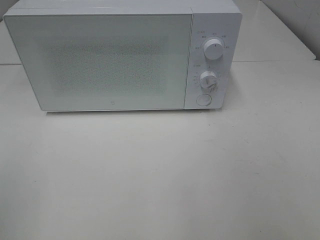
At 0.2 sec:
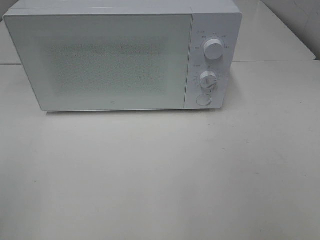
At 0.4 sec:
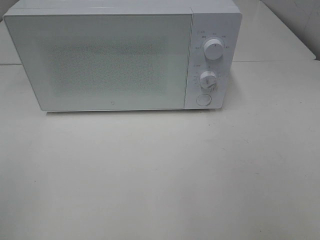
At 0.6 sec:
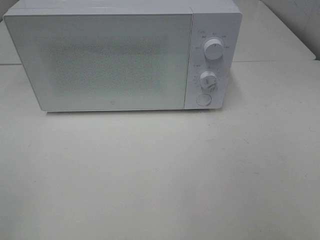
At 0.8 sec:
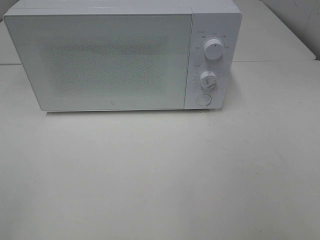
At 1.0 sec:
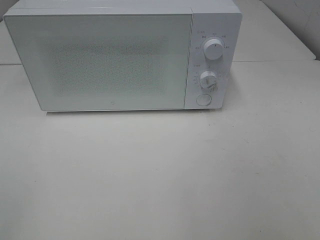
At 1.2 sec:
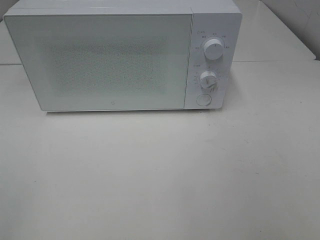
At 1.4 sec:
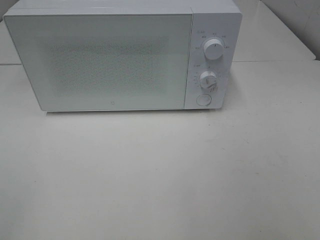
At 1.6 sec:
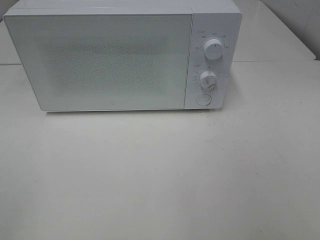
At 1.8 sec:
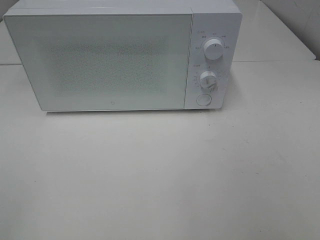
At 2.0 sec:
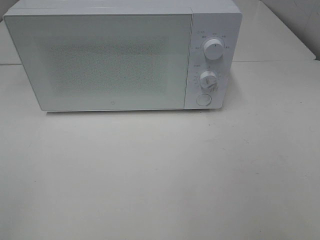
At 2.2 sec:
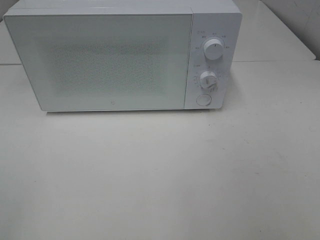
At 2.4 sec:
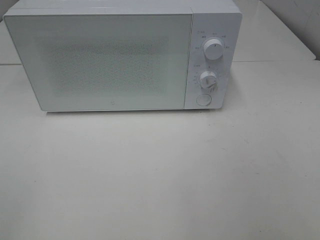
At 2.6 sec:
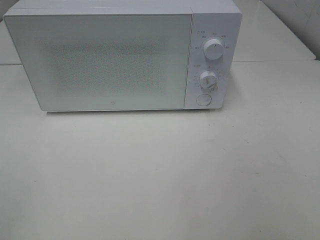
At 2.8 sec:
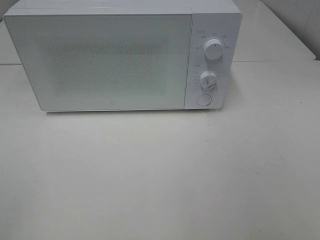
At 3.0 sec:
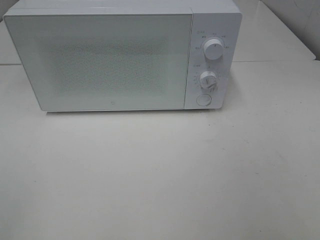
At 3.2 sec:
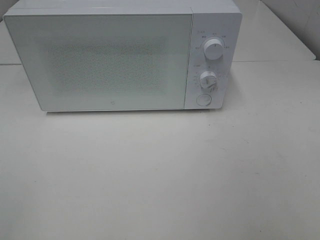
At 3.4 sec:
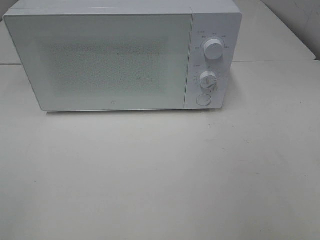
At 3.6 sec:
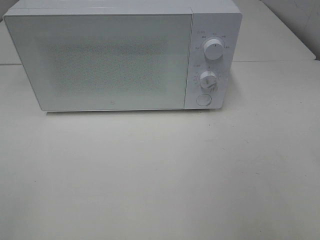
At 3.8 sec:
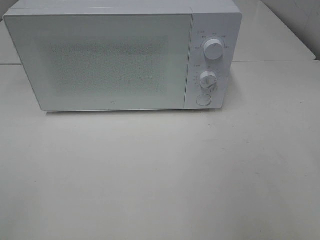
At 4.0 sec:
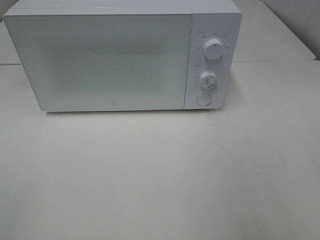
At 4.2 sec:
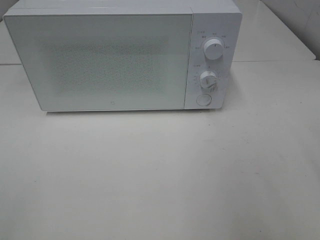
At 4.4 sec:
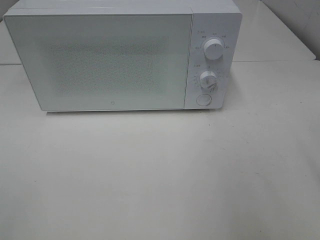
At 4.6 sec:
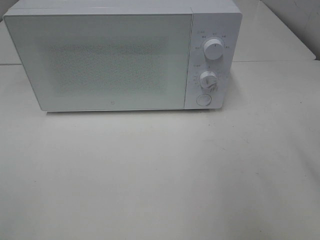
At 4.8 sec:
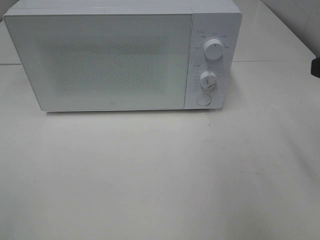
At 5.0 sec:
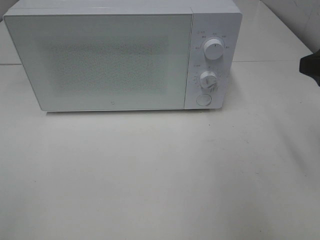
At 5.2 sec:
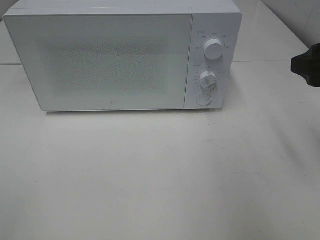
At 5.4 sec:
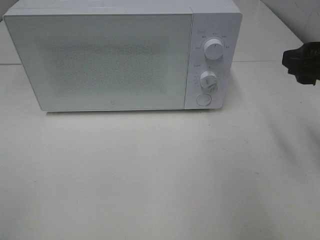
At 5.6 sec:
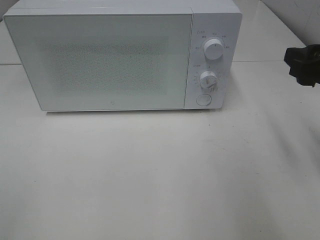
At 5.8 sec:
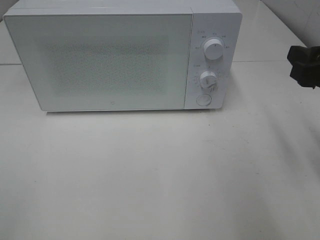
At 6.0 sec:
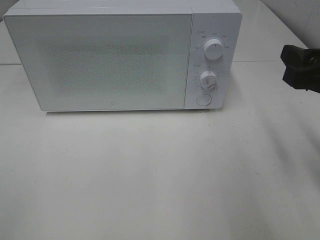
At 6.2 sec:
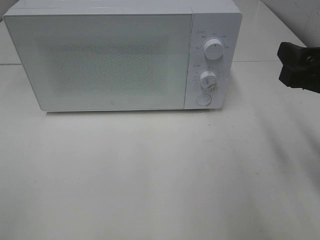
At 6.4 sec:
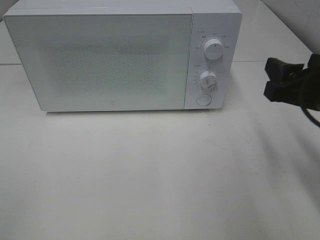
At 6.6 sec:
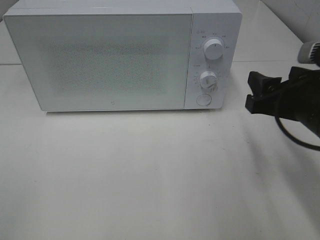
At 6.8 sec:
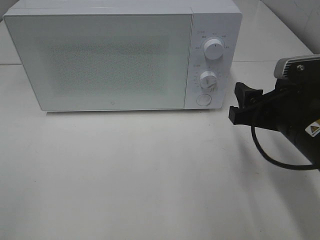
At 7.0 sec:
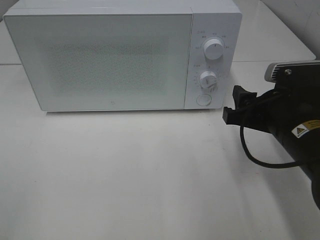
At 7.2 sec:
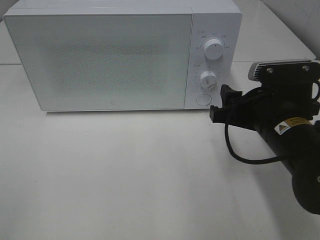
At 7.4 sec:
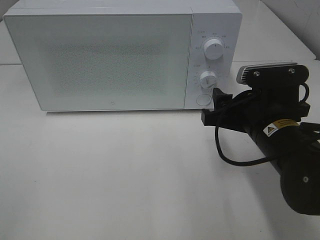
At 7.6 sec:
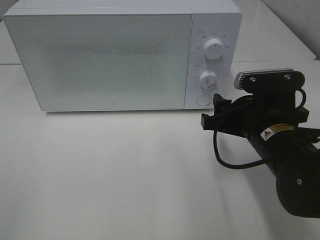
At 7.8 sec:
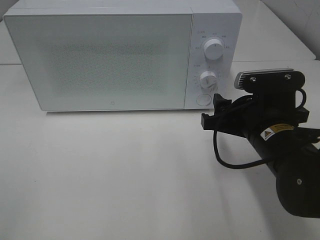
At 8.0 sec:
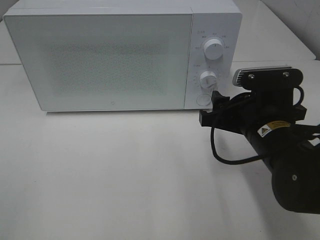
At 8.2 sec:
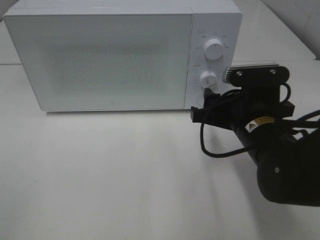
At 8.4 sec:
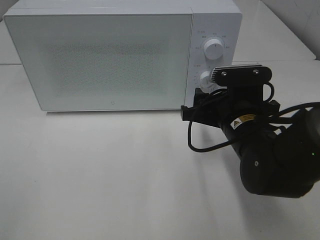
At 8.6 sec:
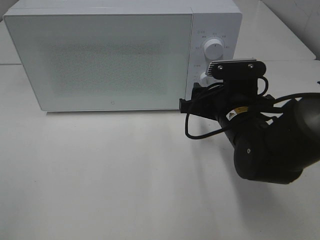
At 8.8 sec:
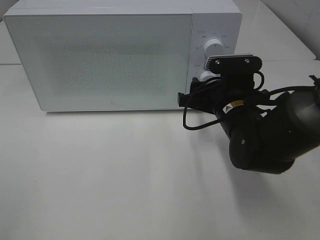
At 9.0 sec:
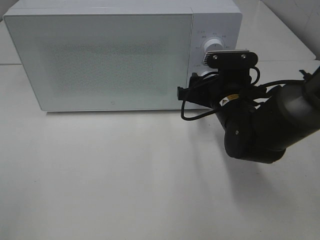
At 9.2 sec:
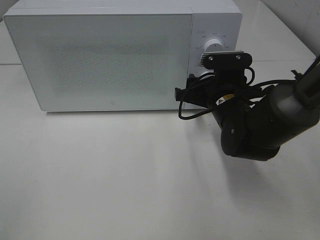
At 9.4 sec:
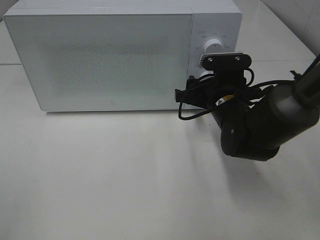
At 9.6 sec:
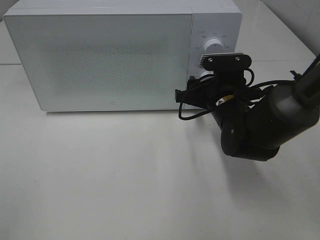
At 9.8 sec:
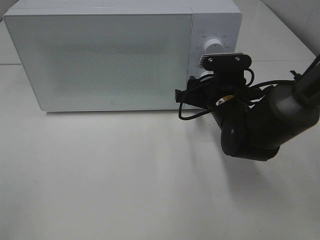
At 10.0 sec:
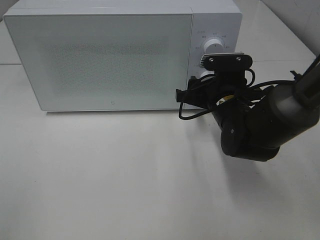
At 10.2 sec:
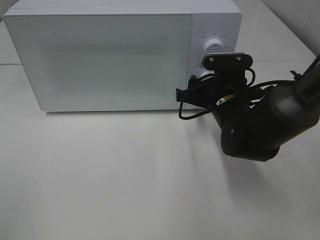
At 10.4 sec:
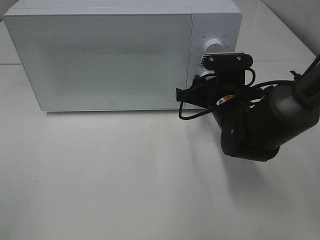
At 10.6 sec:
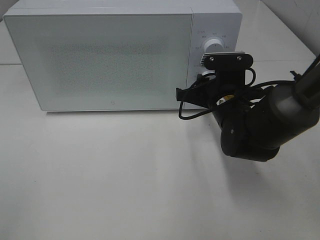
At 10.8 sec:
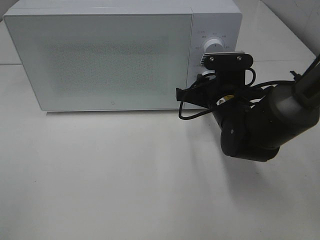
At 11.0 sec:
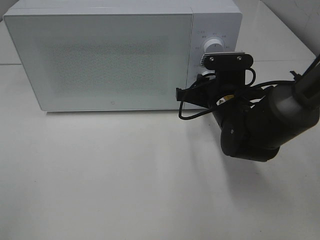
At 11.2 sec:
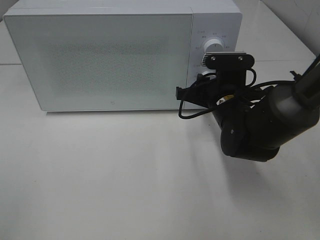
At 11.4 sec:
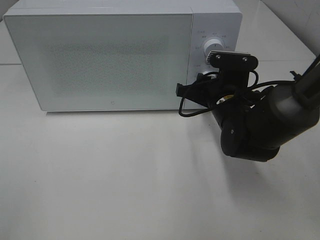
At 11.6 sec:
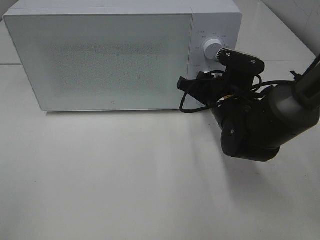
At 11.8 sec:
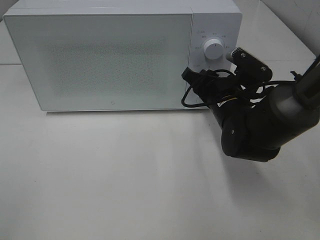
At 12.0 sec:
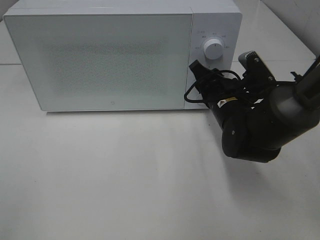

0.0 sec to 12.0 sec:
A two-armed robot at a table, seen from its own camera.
Task of the whole recording: Heat Sandwich.
4.4 sec to 6.0 sec: The right gripper shifts roughly 10 cm downward and forward.
6.0 sec to 7.6 sec: The right gripper goes about 15 cm downward and to the left.
7.6 sec to 9.0 sec: The right gripper is displaced forward by about 10 cm.
9.0 sec to 10.4 sec: Both grippers stay about where they are.

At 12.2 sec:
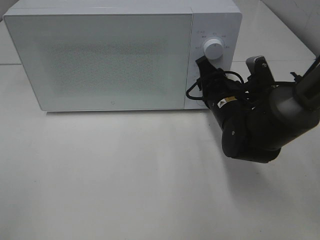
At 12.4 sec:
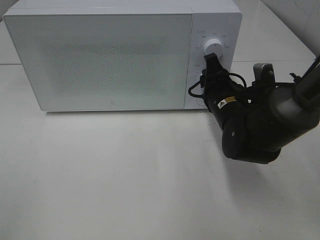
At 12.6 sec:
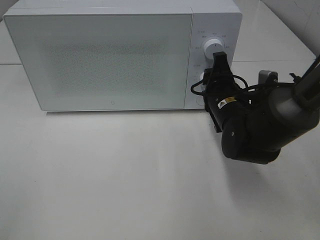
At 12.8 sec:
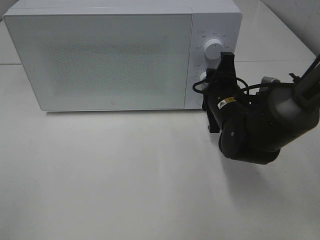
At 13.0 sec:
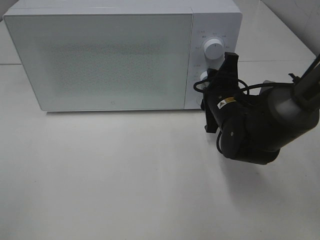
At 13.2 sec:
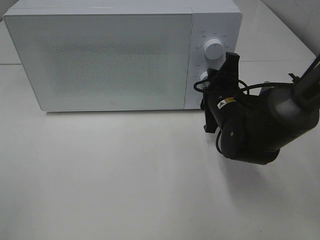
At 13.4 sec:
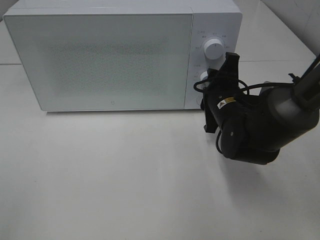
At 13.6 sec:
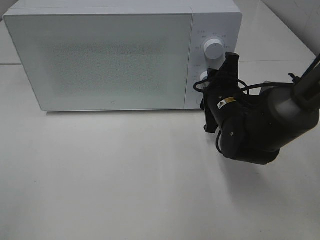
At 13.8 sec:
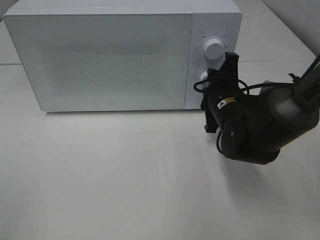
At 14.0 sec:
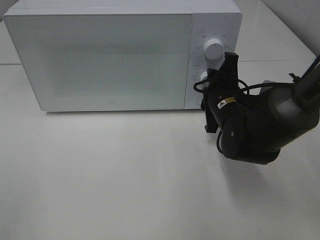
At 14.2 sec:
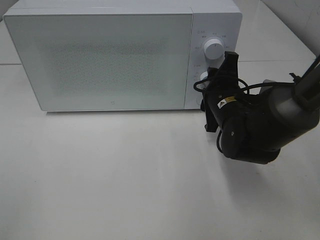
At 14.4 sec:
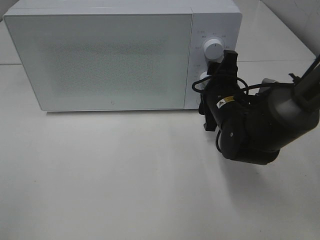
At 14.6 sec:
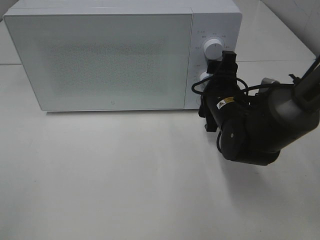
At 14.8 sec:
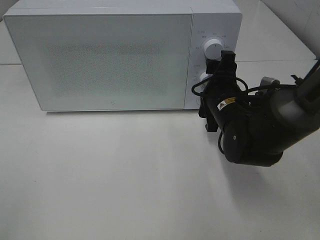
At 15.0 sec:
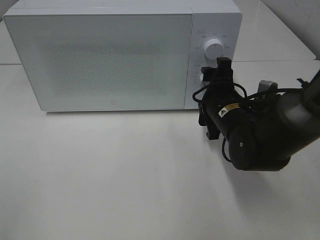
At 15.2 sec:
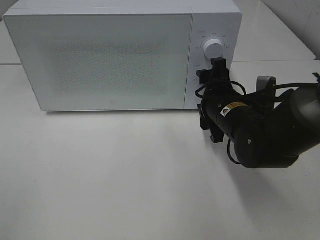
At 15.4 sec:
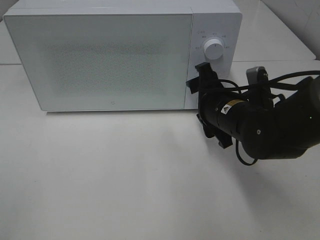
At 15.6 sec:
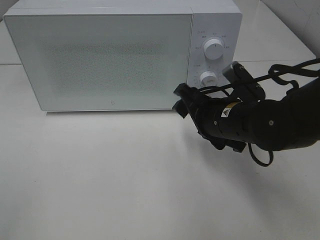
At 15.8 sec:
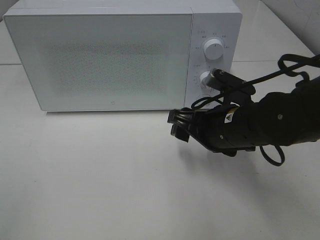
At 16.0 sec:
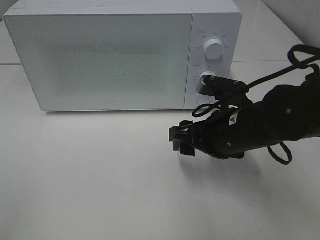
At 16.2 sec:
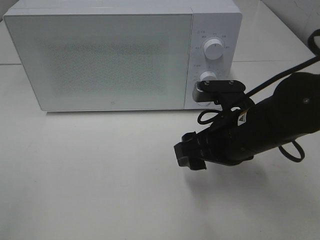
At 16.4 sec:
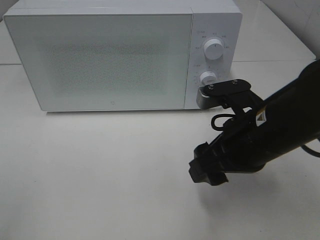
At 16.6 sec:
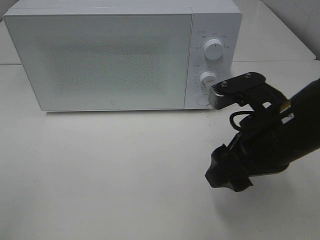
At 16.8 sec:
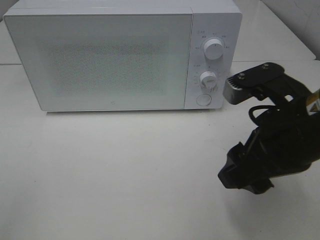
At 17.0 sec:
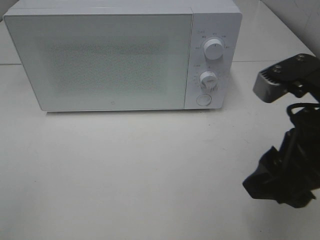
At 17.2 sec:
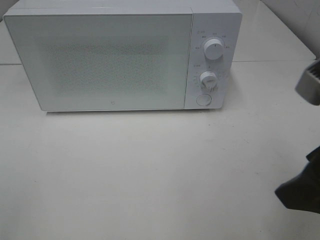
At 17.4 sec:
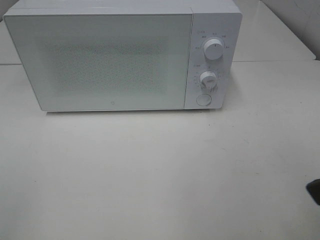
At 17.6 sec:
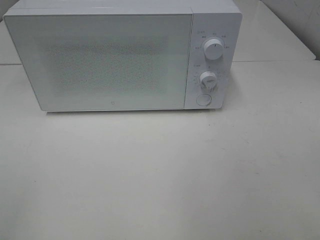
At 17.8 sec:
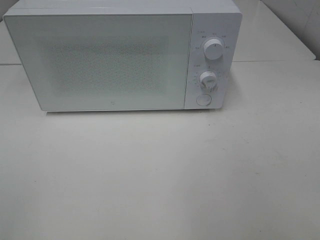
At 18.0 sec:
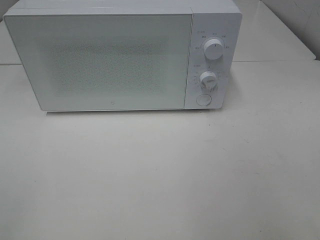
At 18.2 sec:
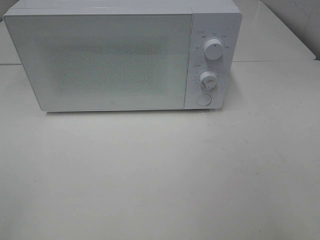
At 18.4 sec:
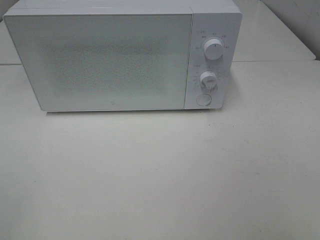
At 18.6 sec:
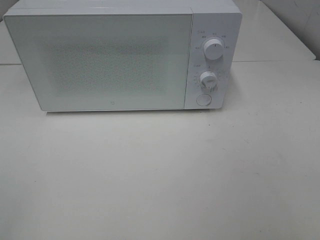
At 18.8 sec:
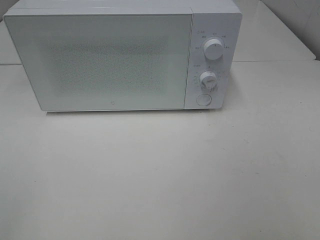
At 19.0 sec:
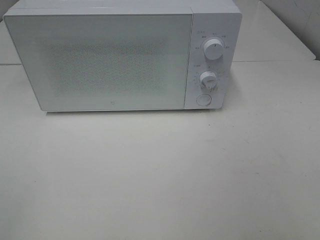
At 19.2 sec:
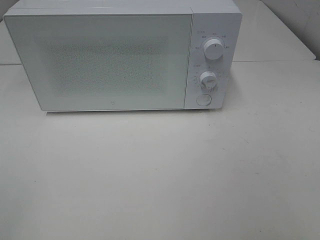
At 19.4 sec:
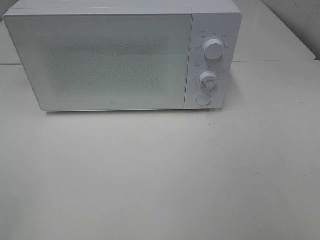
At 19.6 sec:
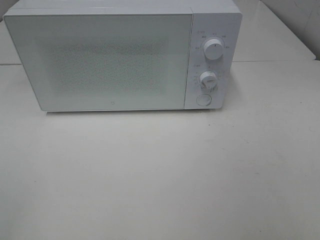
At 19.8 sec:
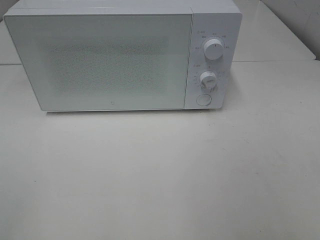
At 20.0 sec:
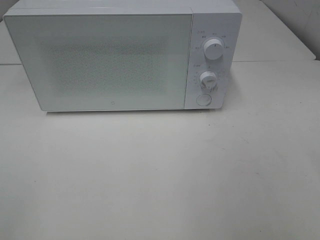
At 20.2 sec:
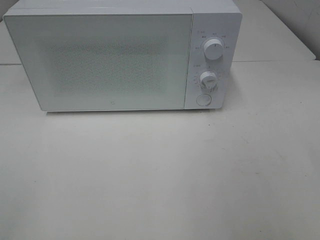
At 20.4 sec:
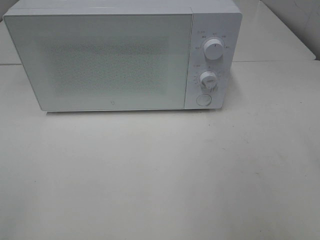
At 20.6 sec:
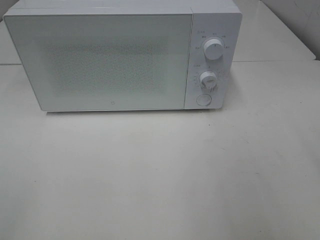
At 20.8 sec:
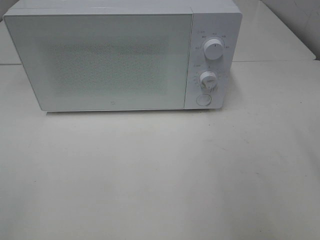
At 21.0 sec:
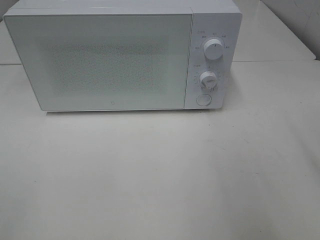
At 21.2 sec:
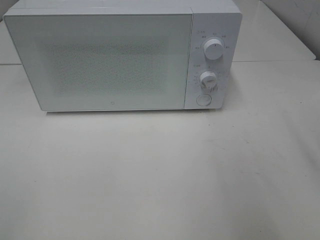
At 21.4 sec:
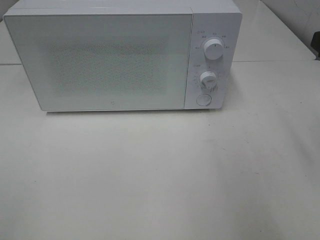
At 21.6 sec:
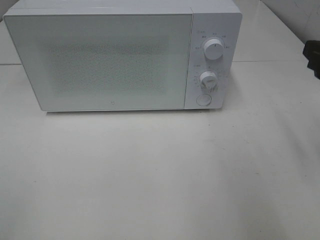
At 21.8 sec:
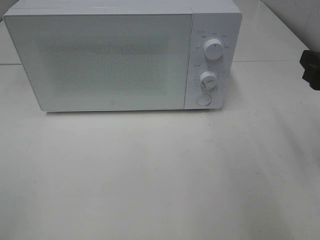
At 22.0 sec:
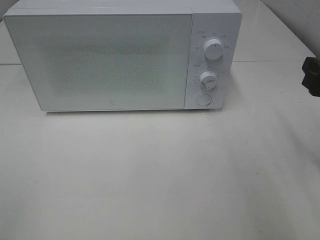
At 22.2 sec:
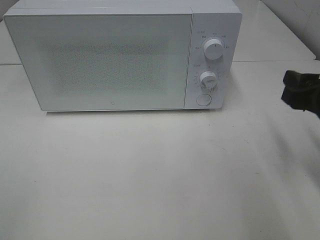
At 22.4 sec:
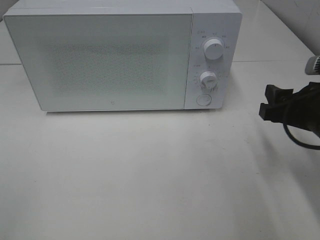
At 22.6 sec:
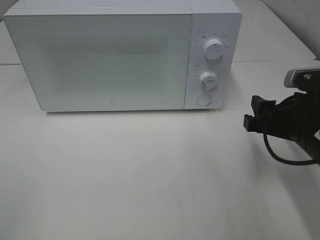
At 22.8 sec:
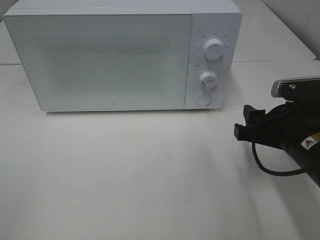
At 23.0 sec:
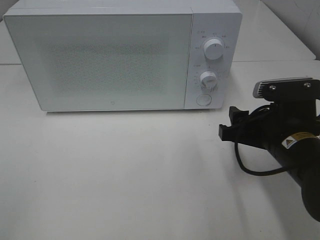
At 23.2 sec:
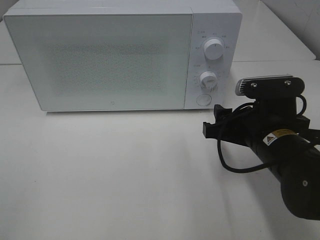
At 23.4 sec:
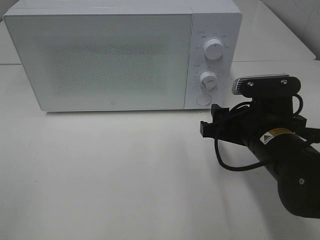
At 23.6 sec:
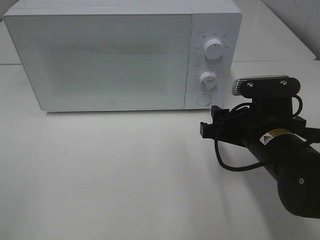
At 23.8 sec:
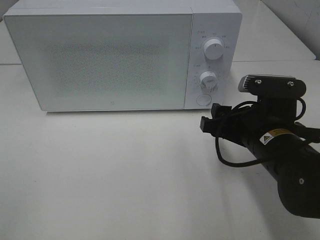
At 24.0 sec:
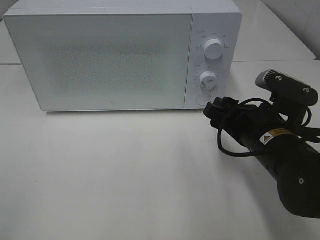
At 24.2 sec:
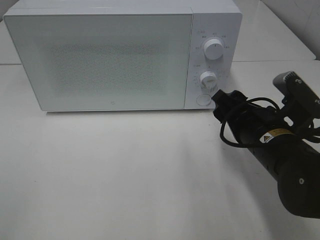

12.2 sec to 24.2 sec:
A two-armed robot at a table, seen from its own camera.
Task of the whole recording: Heat Sandwich.
Step, 12.2 sec to 14.8 sec: Right hand: twist timer button.
13.8 sec to 15.2 sec: The right gripper opens.
15.2 sec to 16.6 sec: The right gripper is displaced backward and upward by about 15 cm.
16.6 sec to 18.2 sec: The right gripper is displaced backward, to the right and upward by roughly 20 cm.
21.2 sec to 22.6 sec: The right gripper is displaced downward and to the left by some 15 cm.
22.6 sec to 24.2 sec: The right gripper heads to the left, covering about 5 cm.
